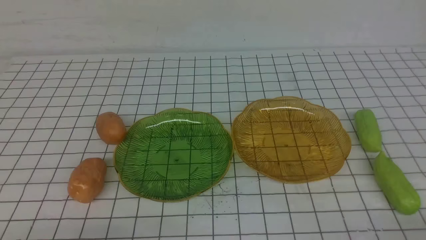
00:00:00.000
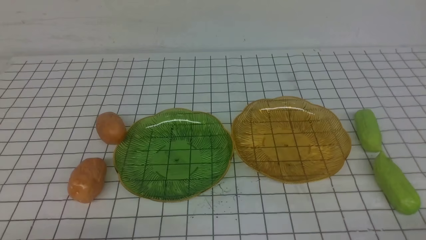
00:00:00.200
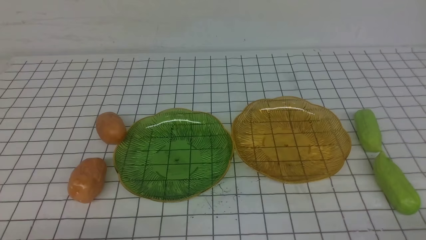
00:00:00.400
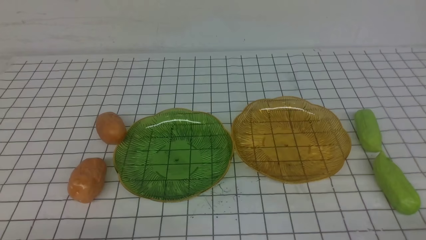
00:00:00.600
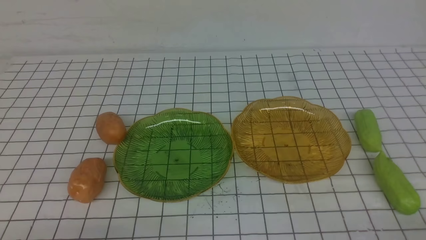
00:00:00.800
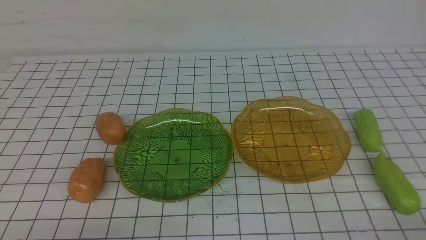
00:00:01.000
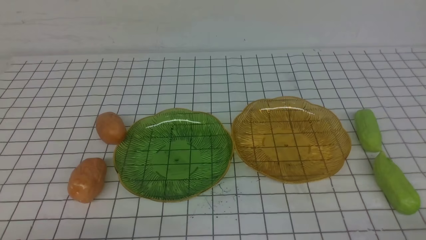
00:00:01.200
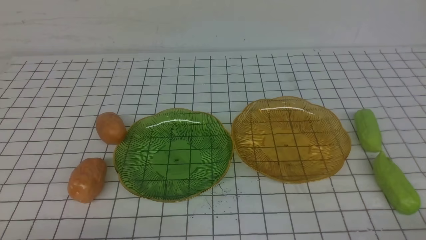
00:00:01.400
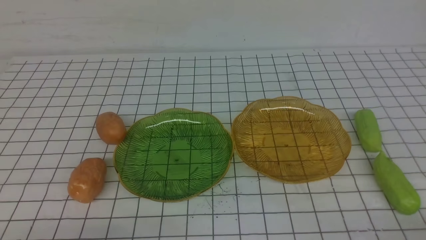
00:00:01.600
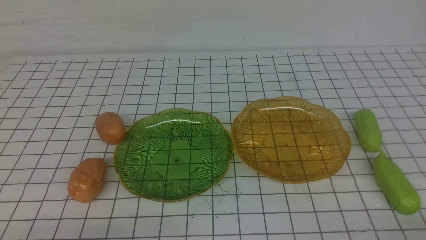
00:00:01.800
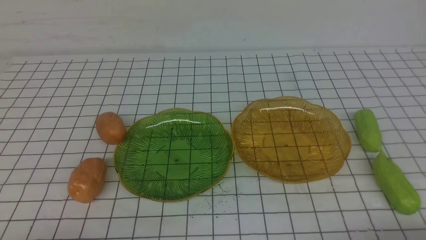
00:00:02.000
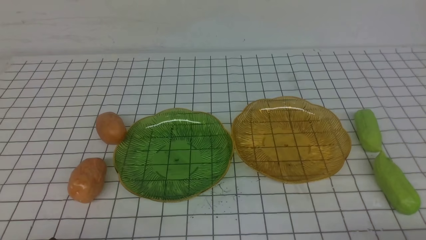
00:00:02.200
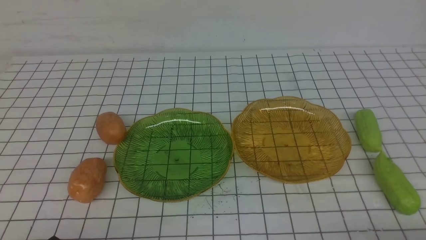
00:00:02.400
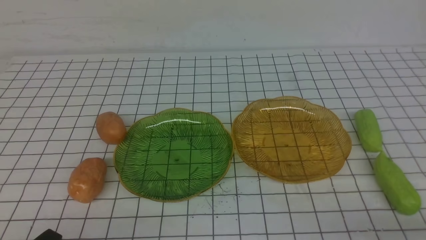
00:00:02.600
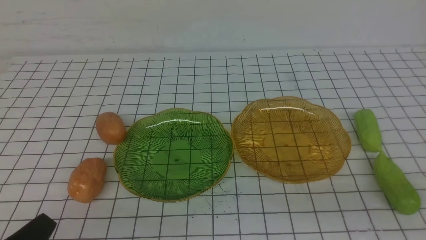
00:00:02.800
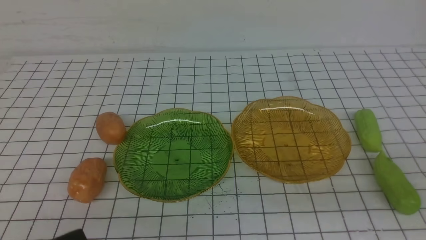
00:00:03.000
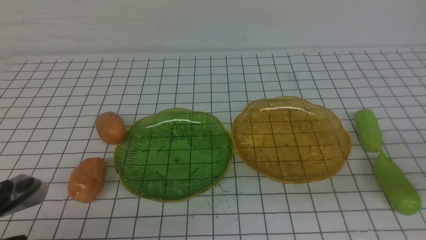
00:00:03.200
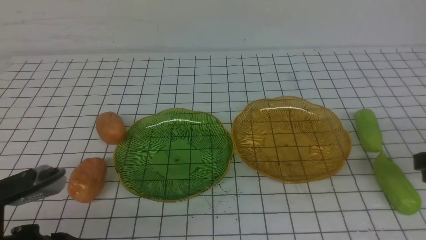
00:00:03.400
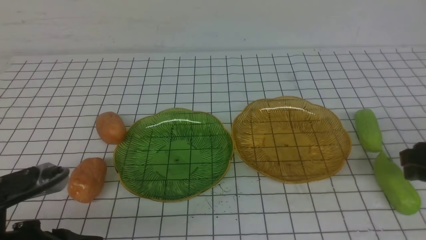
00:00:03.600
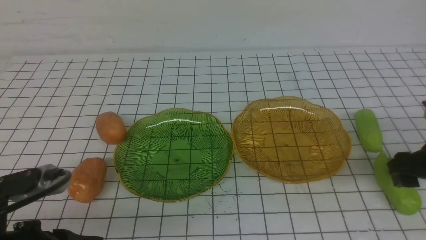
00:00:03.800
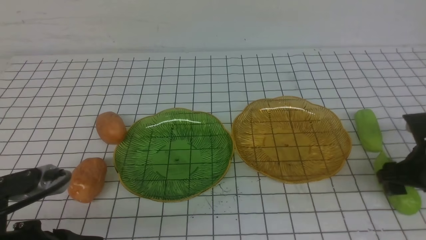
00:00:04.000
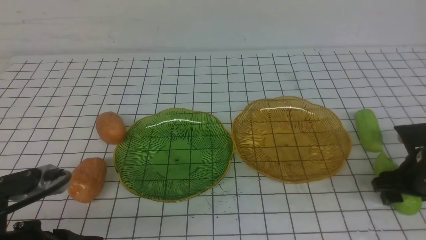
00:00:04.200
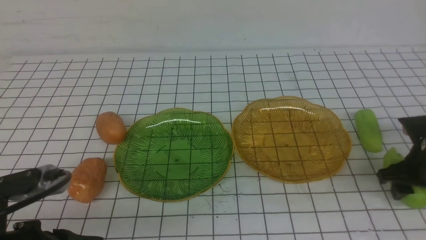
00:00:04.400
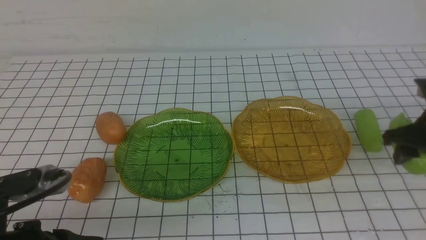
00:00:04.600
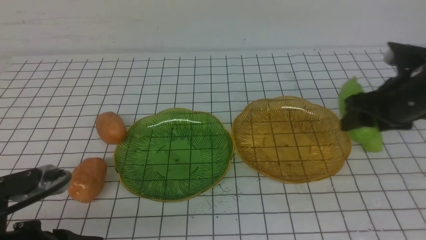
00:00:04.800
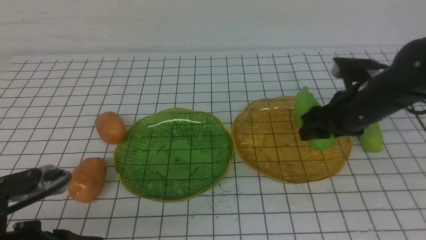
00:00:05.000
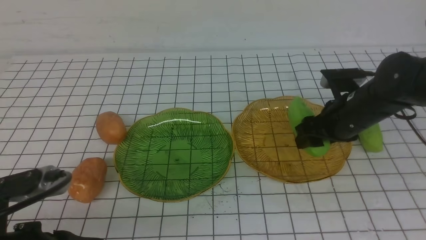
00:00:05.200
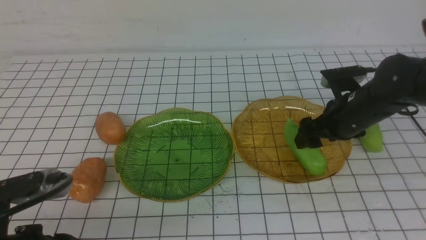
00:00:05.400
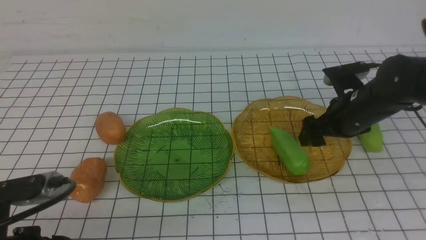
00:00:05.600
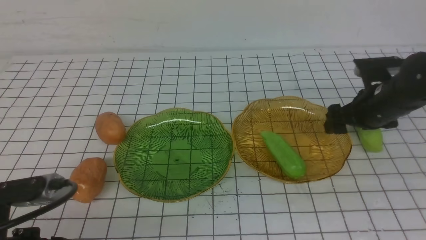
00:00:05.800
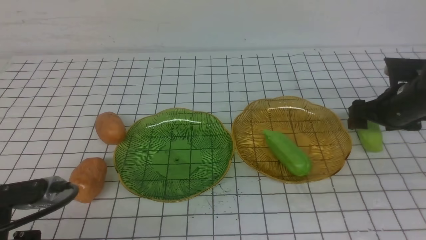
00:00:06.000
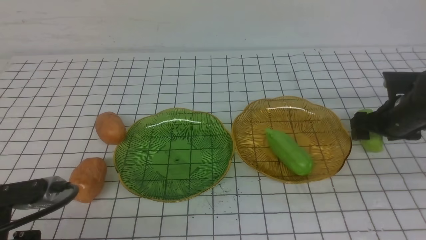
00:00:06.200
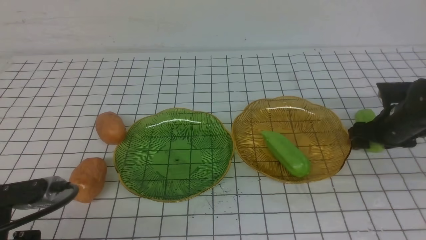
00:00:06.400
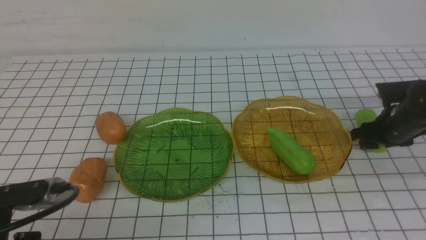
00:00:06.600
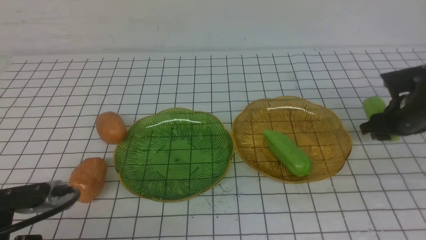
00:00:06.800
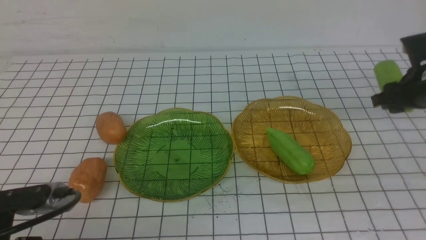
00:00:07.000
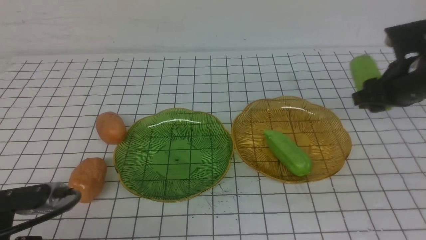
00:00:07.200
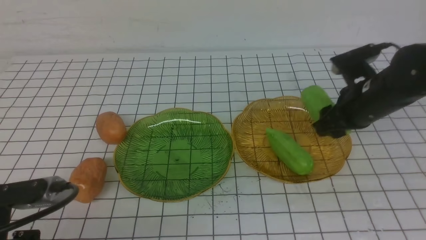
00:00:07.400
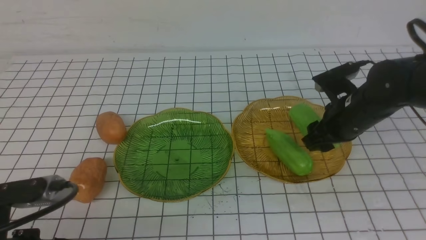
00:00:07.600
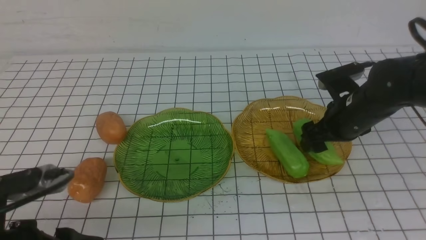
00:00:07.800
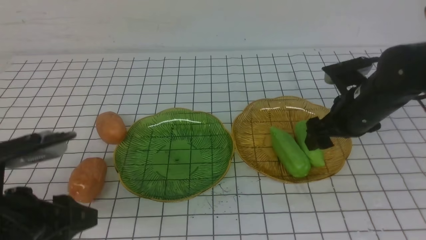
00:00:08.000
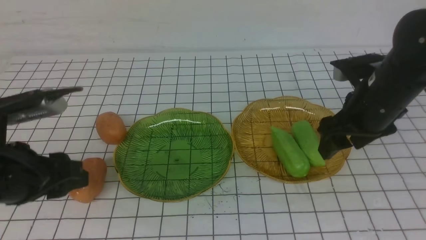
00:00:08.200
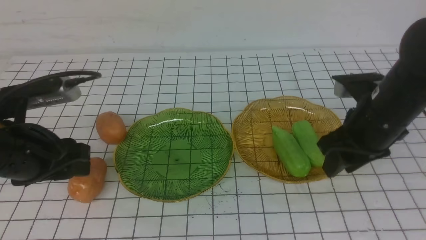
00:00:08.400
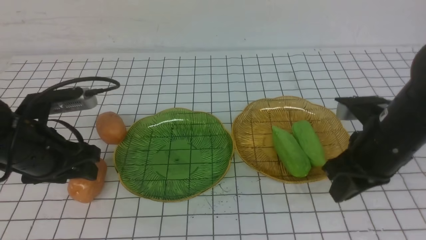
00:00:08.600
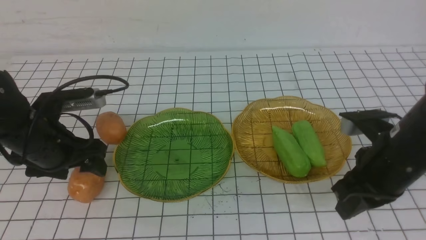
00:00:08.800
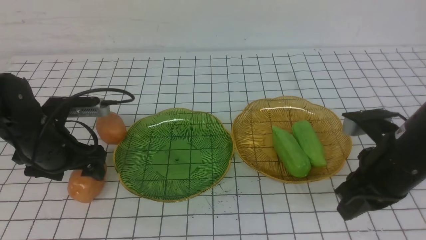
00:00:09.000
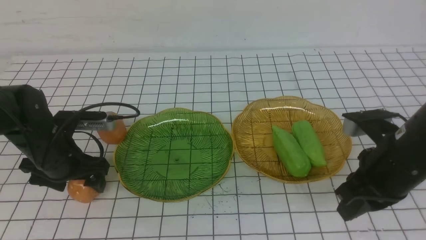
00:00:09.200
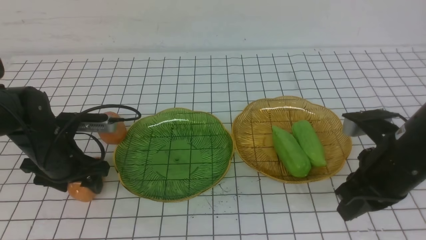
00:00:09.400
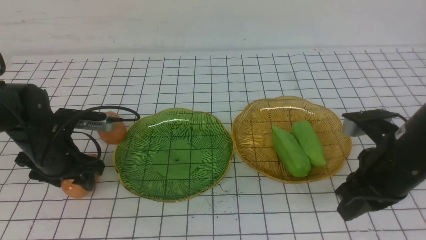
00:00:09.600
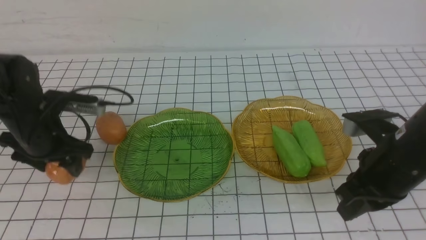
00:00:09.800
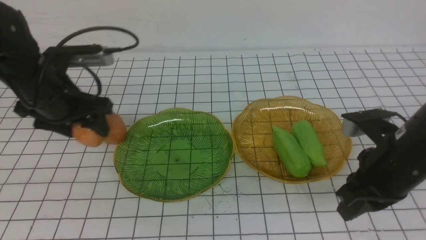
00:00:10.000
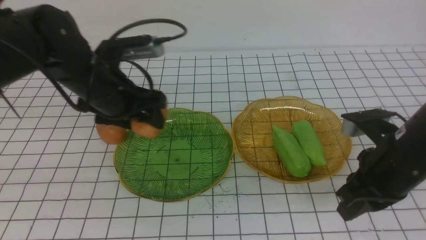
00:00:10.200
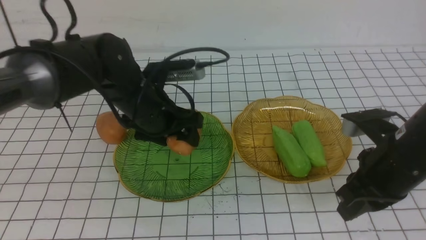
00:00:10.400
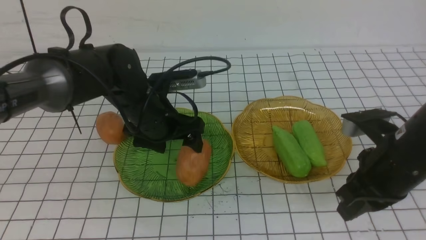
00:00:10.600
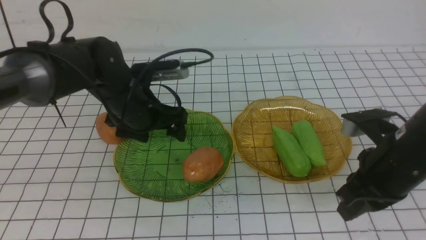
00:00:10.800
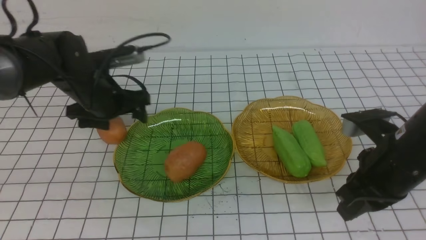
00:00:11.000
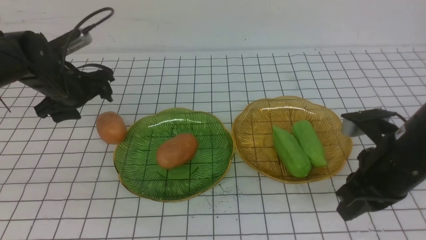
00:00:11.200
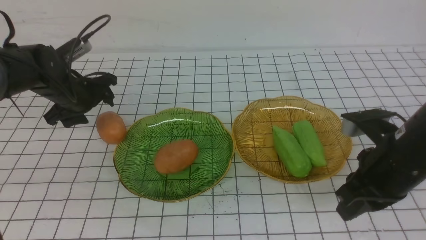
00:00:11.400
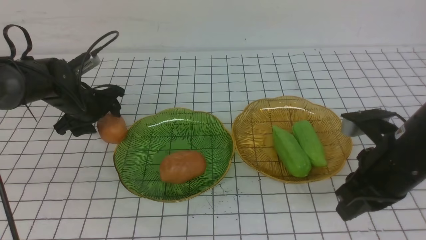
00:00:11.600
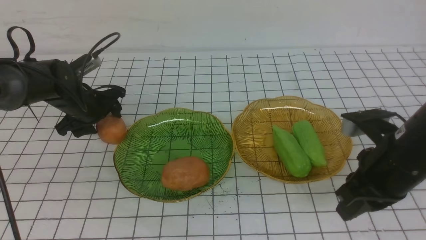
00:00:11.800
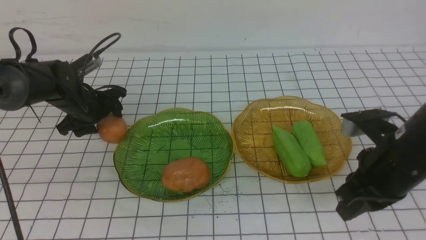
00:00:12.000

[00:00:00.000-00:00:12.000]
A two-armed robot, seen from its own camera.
Step, 00:00:00.000 to 00:00:07.800: use the right arm to grab a chayote and put it into the right plate.
Step, 00:00:08.000 to 00:00:10.400: Grab a potato with your left arm and put it on the left plate.
00:00:00.000 to 00:00:01.600: The two grippers keep their place.
00:00:03.000 to 00:00:04.400: The right gripper heads forward and downward, covering about 20 cm, and opens.
00:00:04.400 to 00:00:06.000: The right gripper travels forward by approximately 10 cm, goes to the left and returns, approximately 10 cm each way, and opens.
00:00:06.000 to 00:00:07.600: The right gripper shifts approximately 10 cm to the left.
00:00:07.600 to 00:00:09.000: The right gripper goes about 10 cm backward, and closes its fingers, while the left gripper goes approximately 20 cm forward, and opens.
00:00:09.000 to 00:00:10.400: The left gripper is displaced to the right by about 15 cm.
00:00:10.400 to 00:00:12.000: The left gripper moves to the left, forward and downward, about 15 cm.

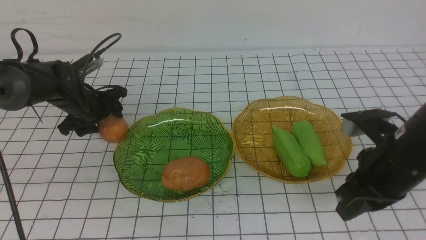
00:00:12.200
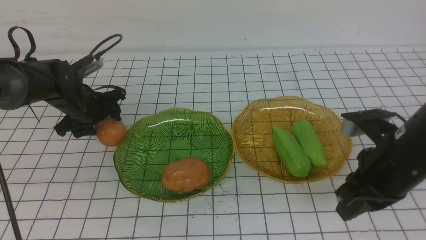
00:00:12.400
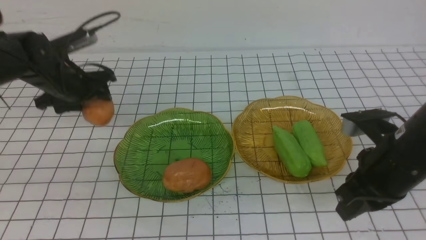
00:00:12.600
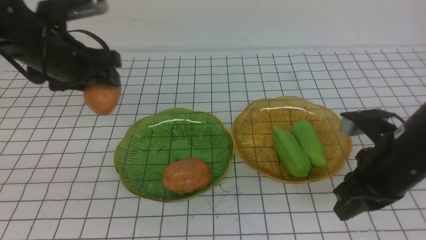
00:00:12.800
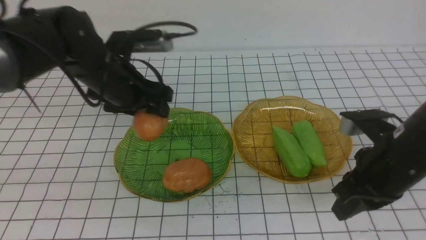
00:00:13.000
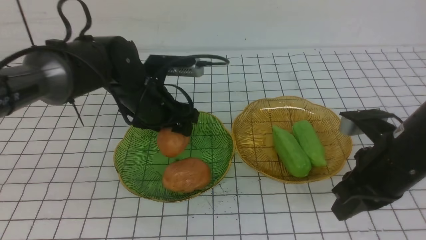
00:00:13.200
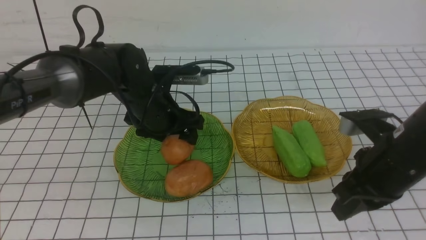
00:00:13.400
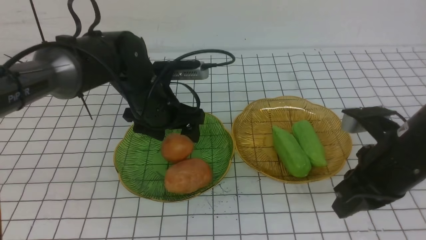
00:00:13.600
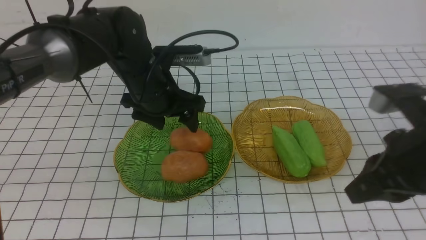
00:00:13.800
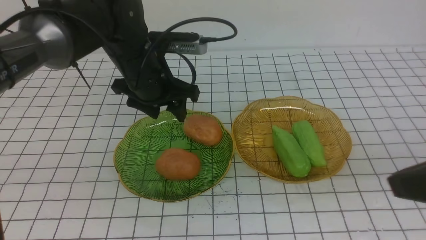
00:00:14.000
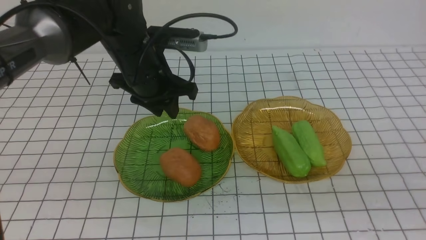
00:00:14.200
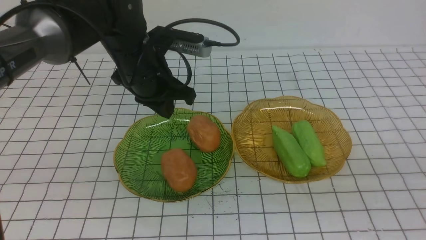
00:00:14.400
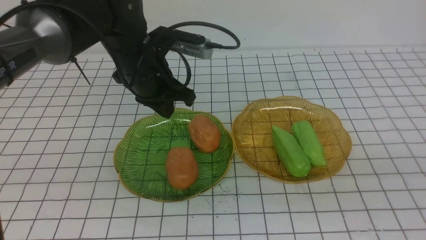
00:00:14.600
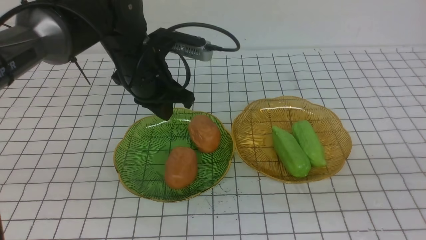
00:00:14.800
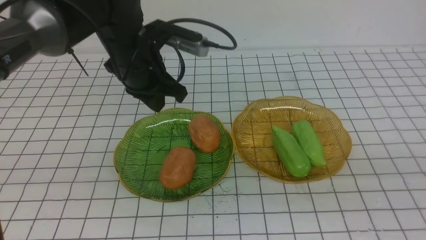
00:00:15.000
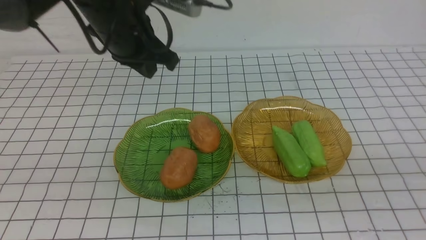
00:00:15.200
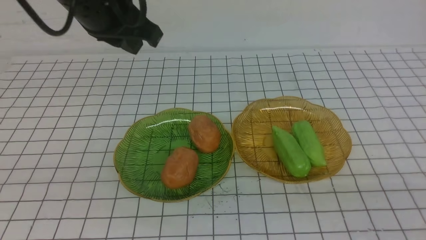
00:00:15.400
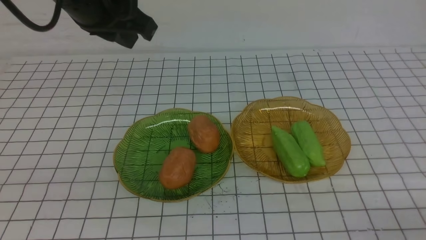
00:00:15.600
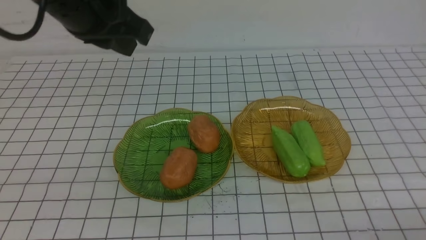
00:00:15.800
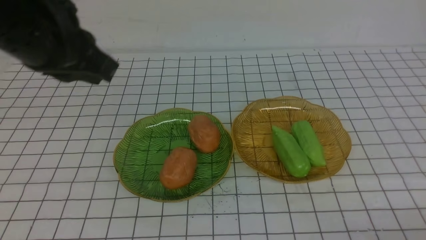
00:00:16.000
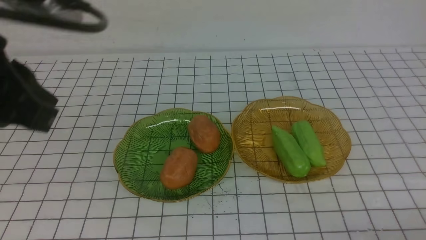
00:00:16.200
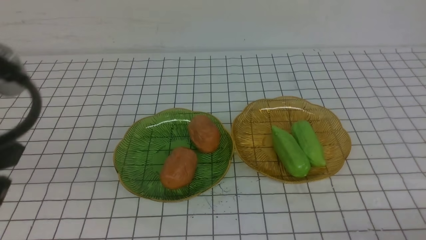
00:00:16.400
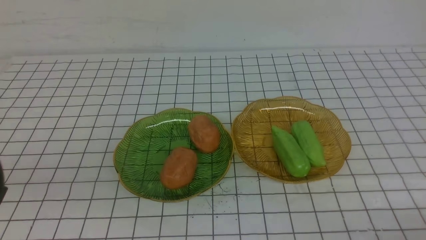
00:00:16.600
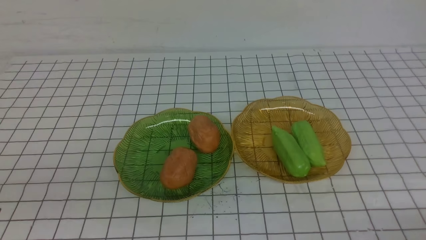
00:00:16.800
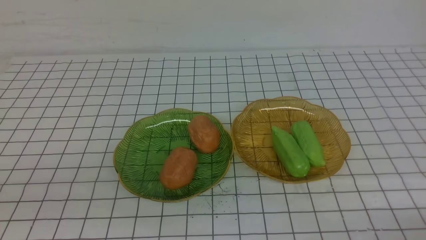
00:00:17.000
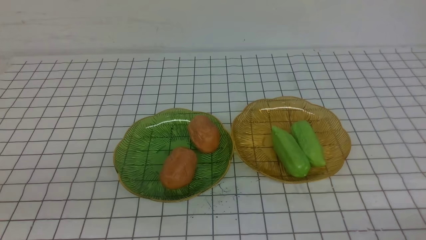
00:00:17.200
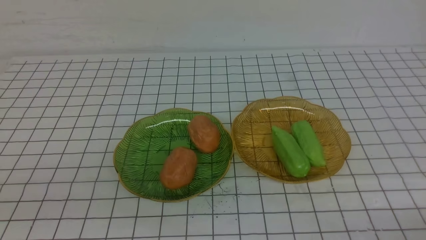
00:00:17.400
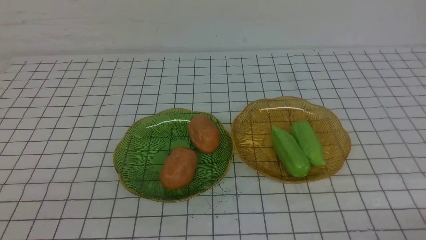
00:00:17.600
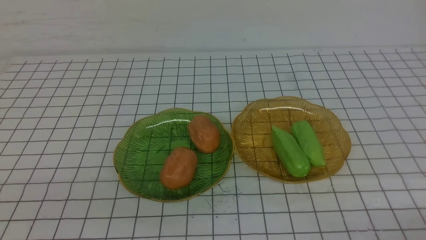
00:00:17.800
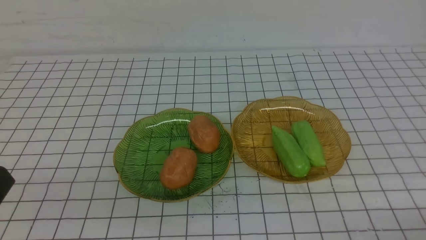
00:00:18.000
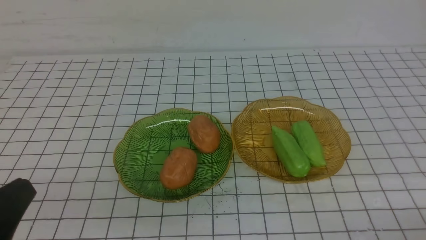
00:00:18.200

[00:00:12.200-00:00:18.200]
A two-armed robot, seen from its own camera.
00:00:12.200 to 00:00:13.800: The right gripper goes roughly 10 cm upward and backward; the left gripper travels to the right and upward by roughly 15 cm.
00:00:13.800 to 00:00:15.200: The left gripper shifts approximately 10 cm upward, and closes; the right gripper shifts approximately 15 cm backward and to the right.
00:00:15.200 to 00:00:16.600: The right gripper heads downward, covering about 10 cm; the left gripper moves backward, about 25 cm.
00:00:16.600 to 00:00:18.200: The left gripper is displaced downward by roughly 10 cm.
